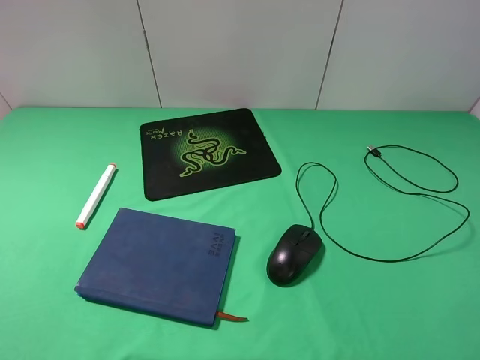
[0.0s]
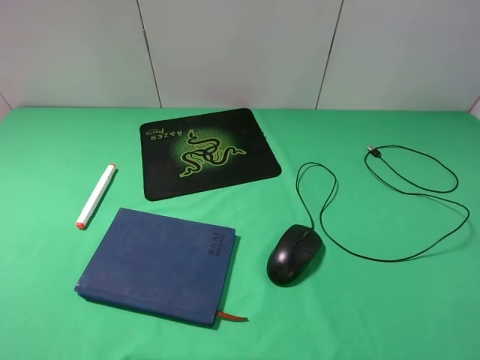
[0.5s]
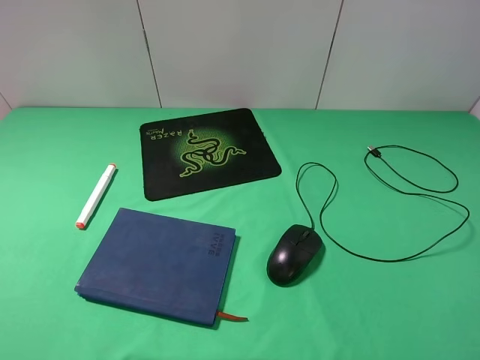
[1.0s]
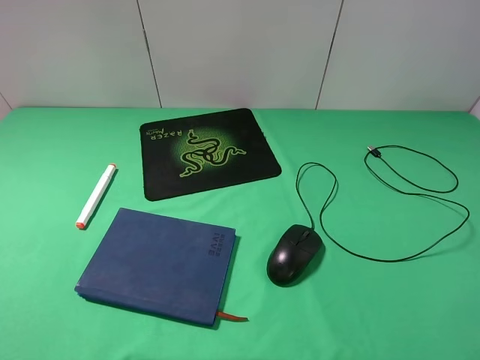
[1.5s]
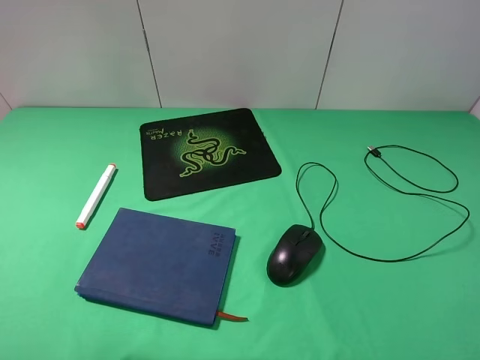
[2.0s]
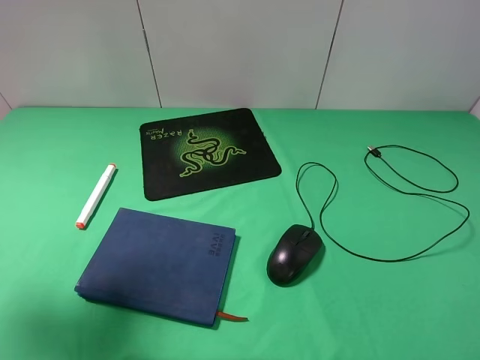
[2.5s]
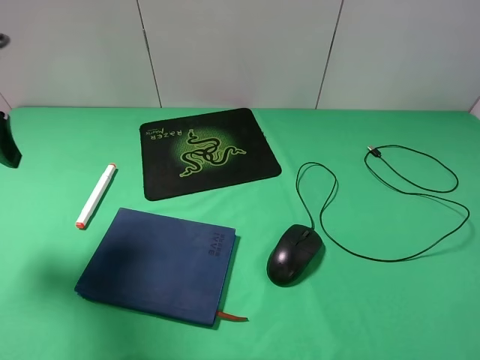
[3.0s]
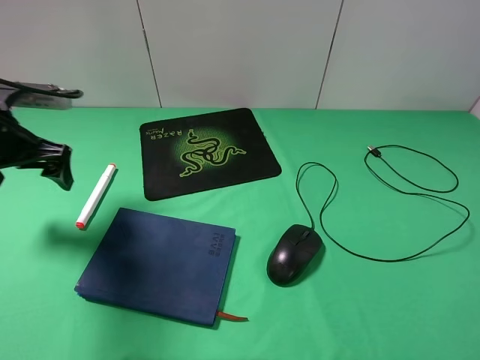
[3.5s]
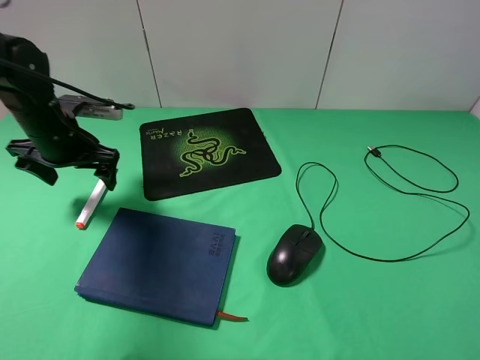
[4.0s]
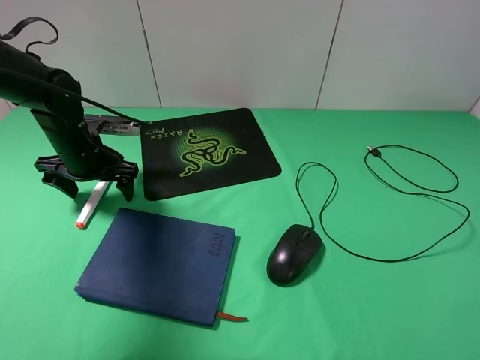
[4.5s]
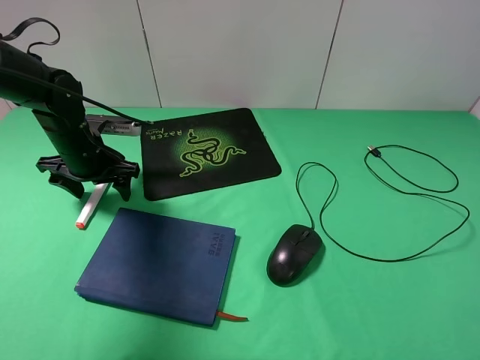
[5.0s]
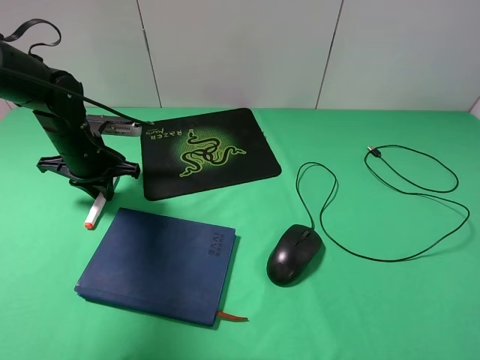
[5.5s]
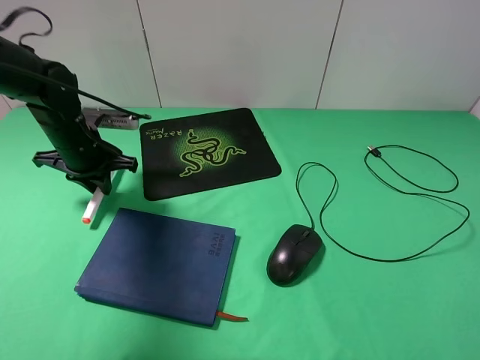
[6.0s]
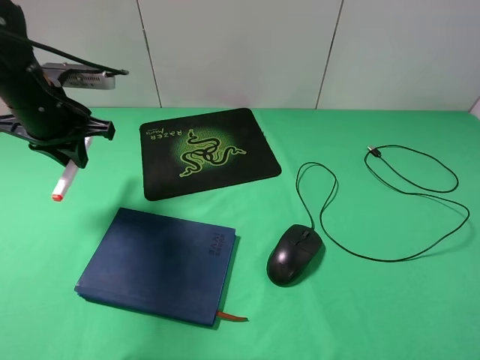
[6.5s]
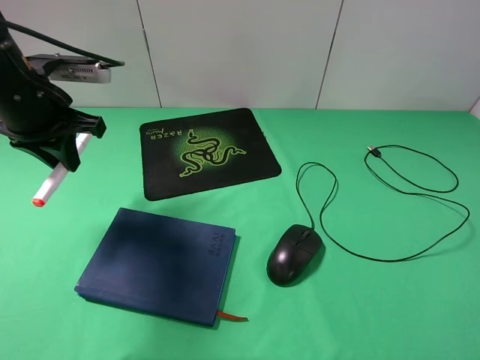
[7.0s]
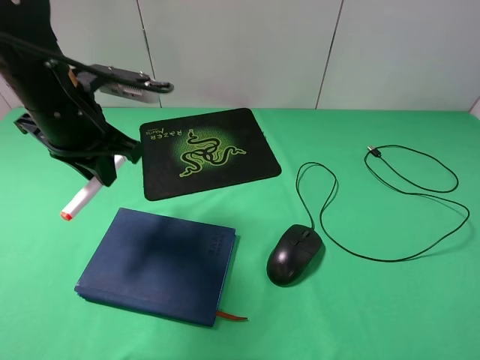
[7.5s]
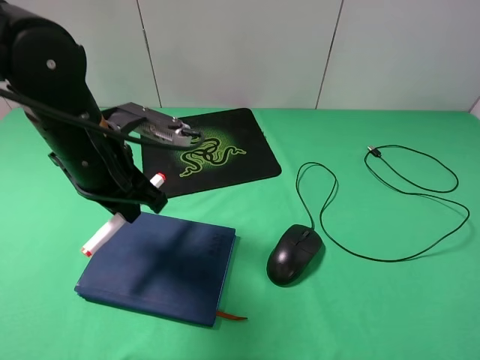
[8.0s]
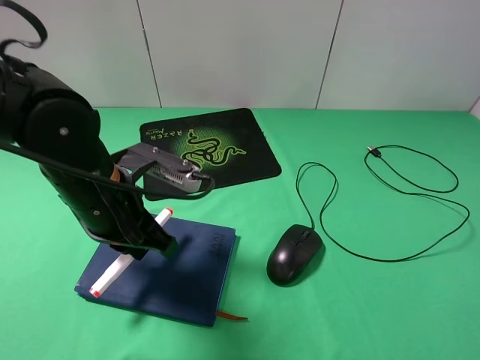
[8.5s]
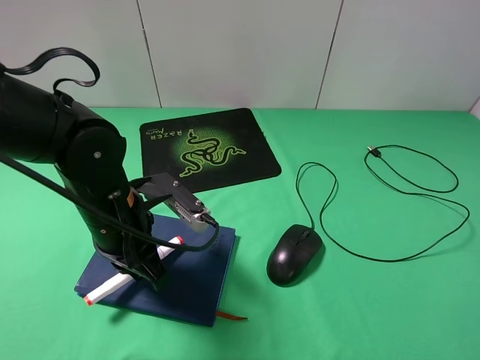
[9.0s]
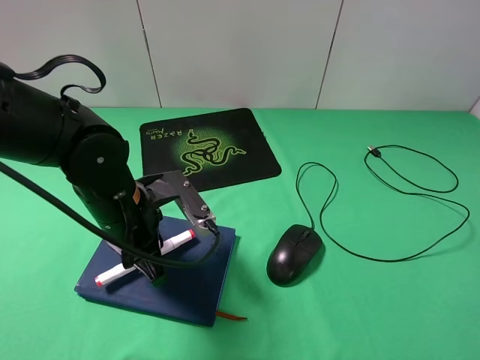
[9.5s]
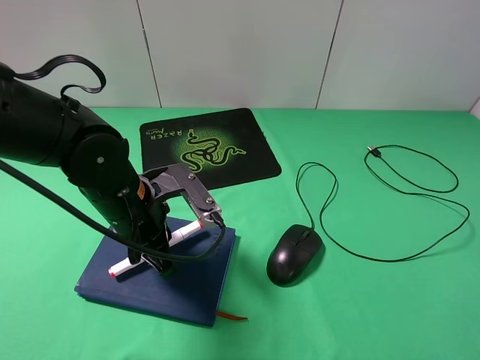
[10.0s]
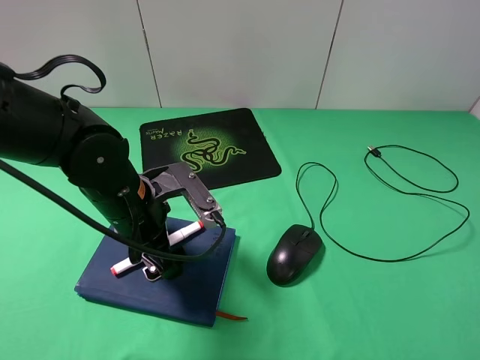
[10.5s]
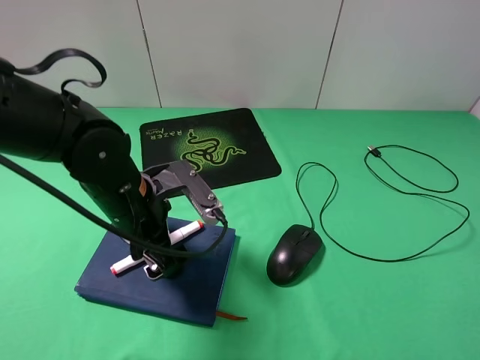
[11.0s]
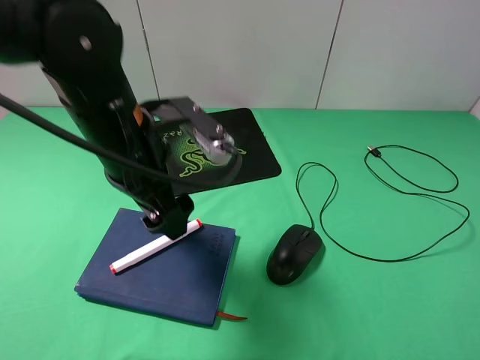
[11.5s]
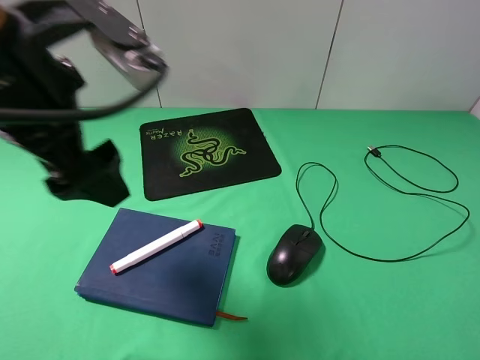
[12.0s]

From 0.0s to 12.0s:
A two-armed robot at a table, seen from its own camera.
Step, from 0.0s to 5.5s: Grasp the marker with the left gripper.
Step, from 6.0s to 10.5s: Place the marker on the notebook with the left gripper.
From 2.0s to 4.0s: The left gripper travels forward and downward by approximately 35 cm.
From 4.0s to 6.0s: The left gripper closes up.
From 6.0s to 8.0s: The left gripper is displaced backward, to the right and upward by some 15 cm.
From 8.0s to 10.0s: The left gripper goes roughly 5 cm downward.
From 10.0s to 12.0s: The left gripper moves upward, some 20 cm, and opens its fingers.

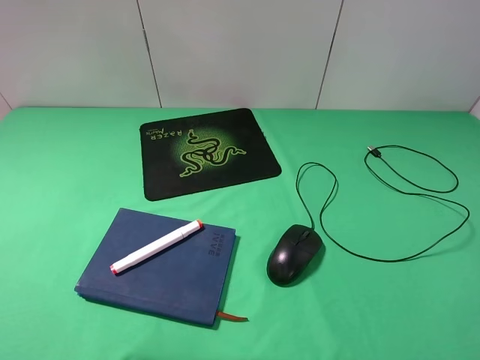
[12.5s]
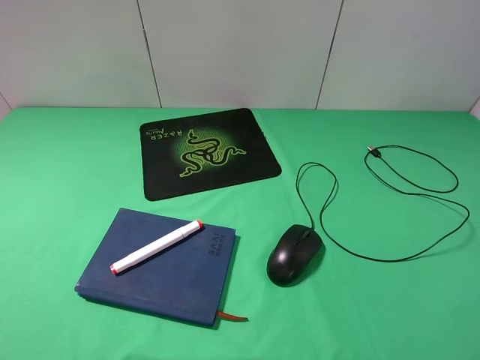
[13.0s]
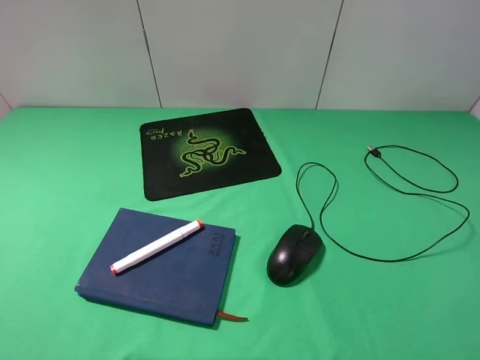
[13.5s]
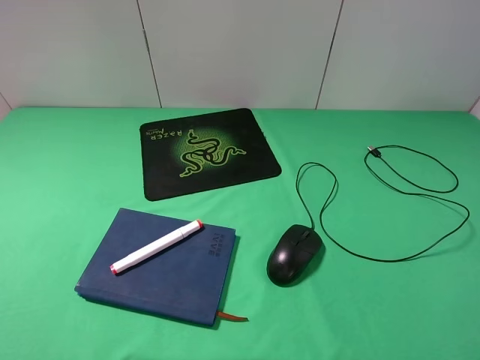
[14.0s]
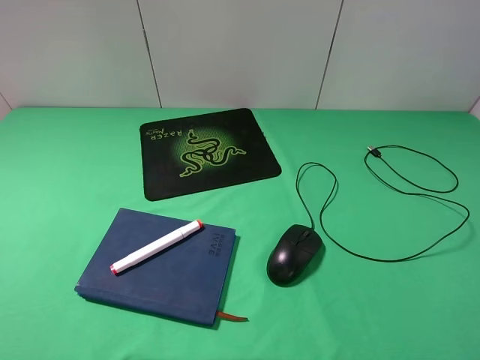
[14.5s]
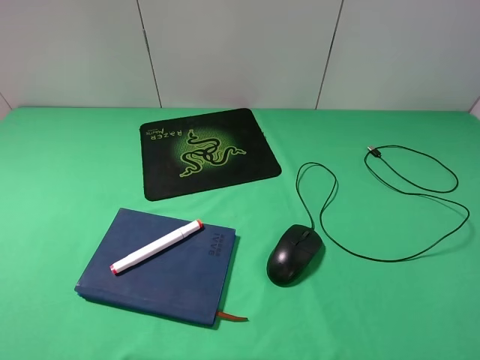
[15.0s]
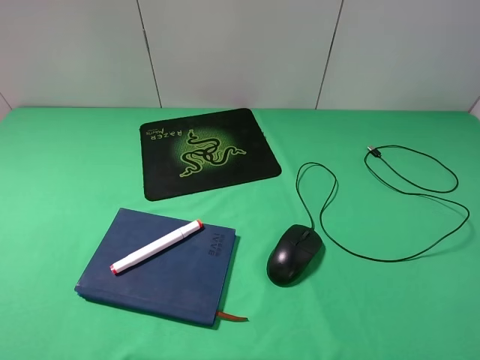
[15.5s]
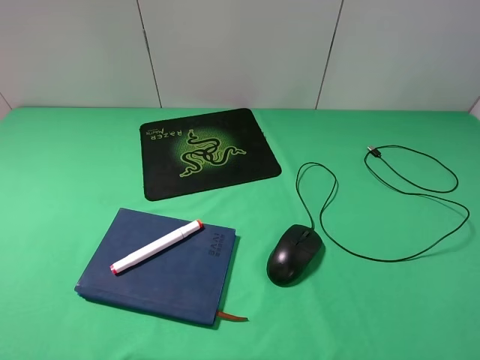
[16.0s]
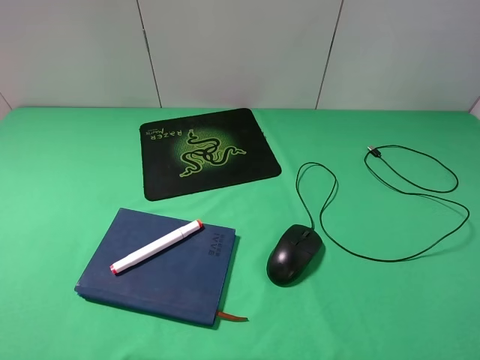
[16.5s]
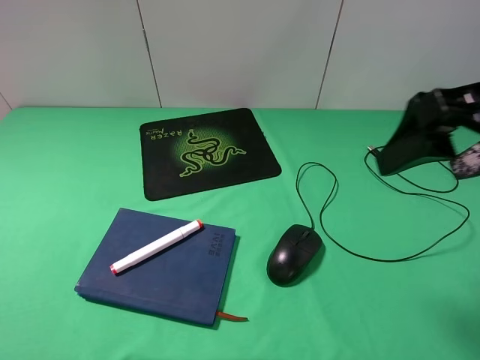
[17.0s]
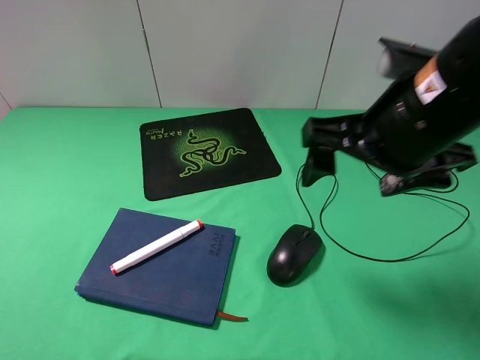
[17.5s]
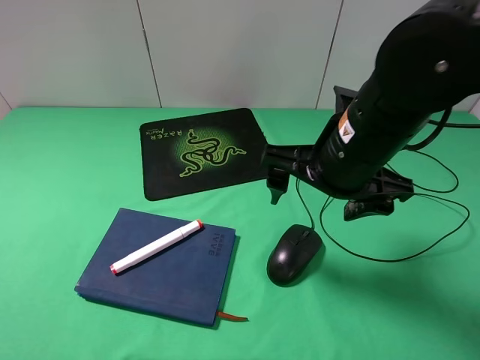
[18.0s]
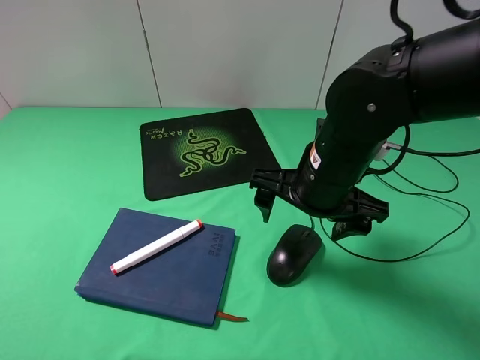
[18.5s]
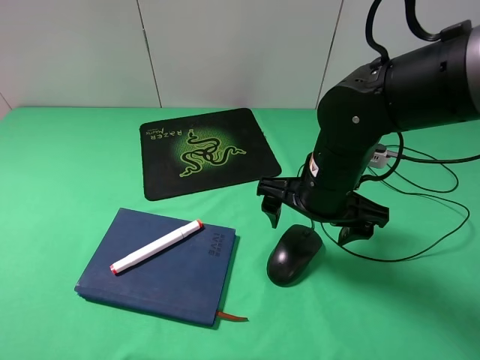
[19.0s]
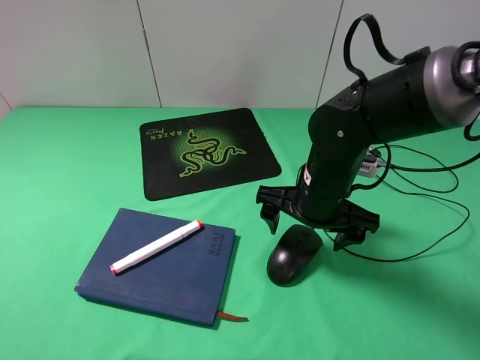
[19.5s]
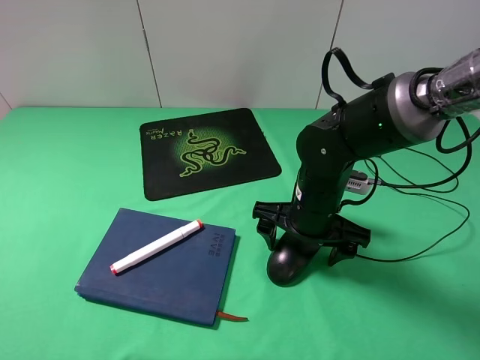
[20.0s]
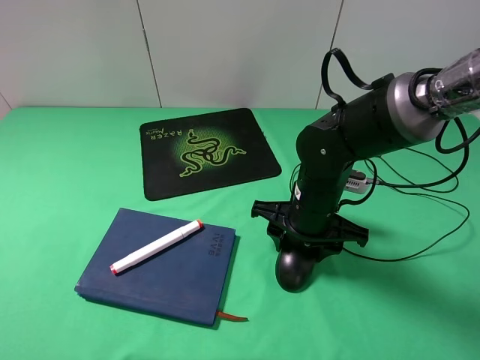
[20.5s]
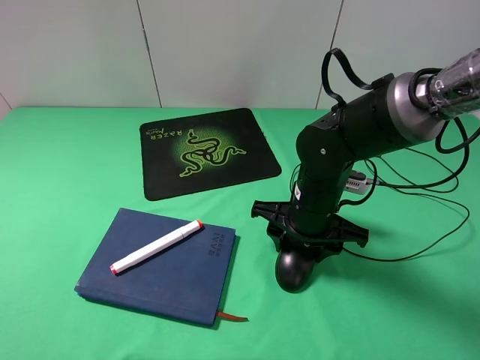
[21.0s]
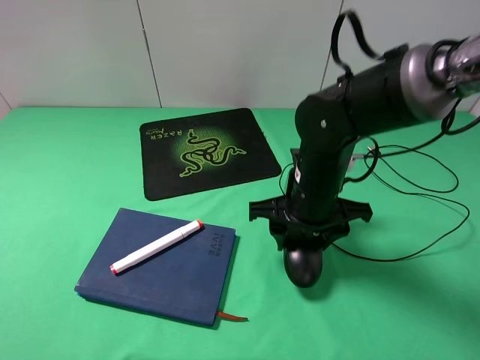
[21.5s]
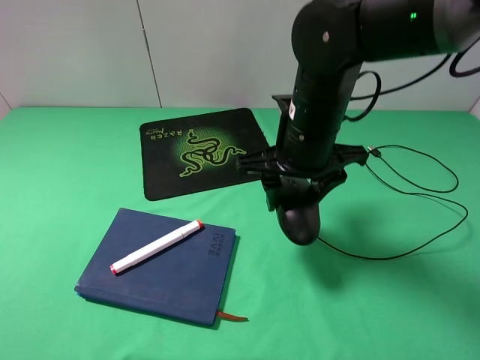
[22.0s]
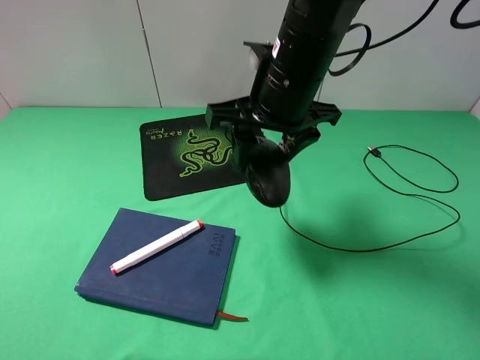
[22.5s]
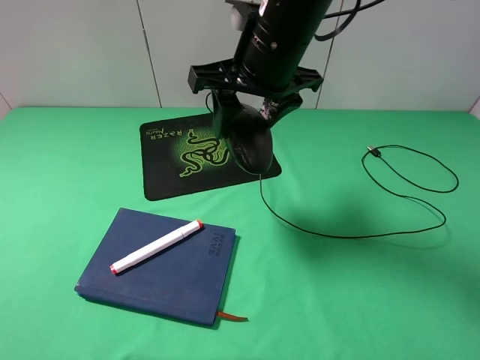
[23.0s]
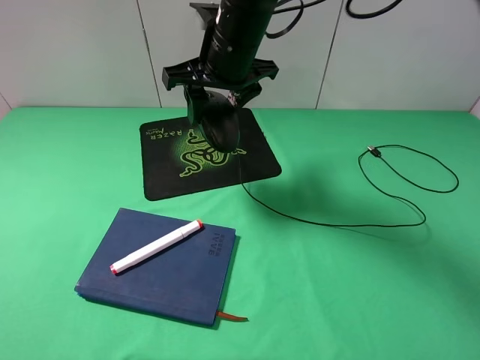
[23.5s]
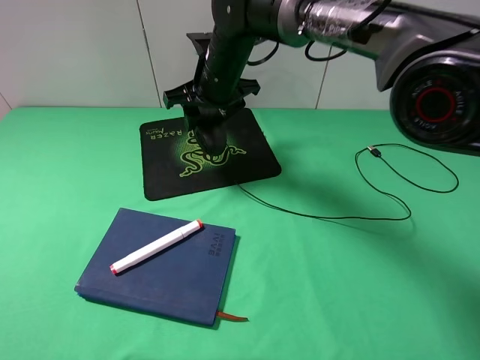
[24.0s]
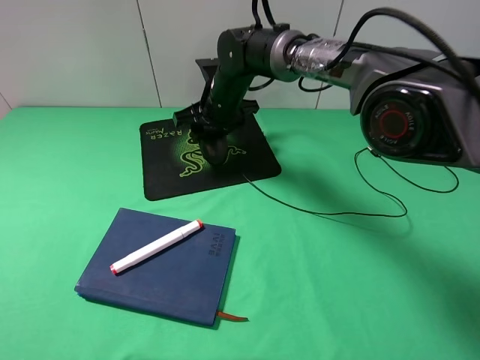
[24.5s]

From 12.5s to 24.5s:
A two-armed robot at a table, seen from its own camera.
Step, from 12.5s to 20.5s: Grasp the mouse with the right gripper.
From 16.5s to 18.5s: The right gripper goes some 30 cm downward, to the left and forward.
From 18.5s to 20.5s: The right gripper goes approximately 10 cm downward, and closes its fingers.
From 20.5s to 22.5s: The right gripper goes about 15 cm upward.
From 22.5s to 24.5s: The right gripper moves forward, downward and to the left, about 20 cm.

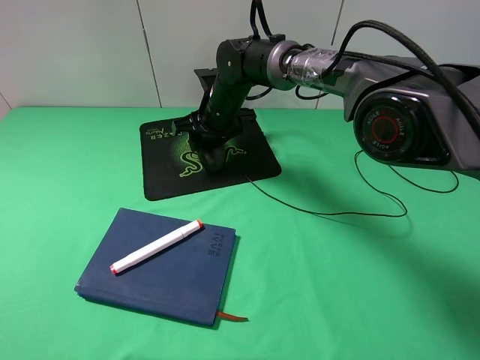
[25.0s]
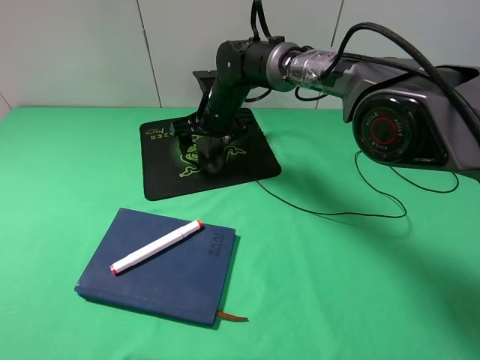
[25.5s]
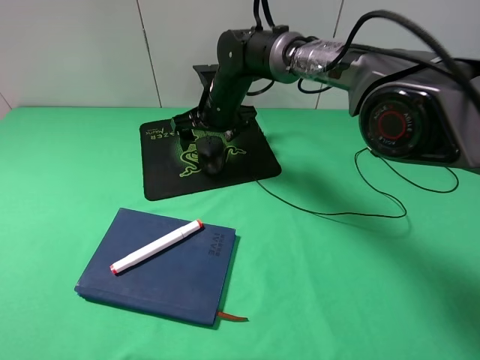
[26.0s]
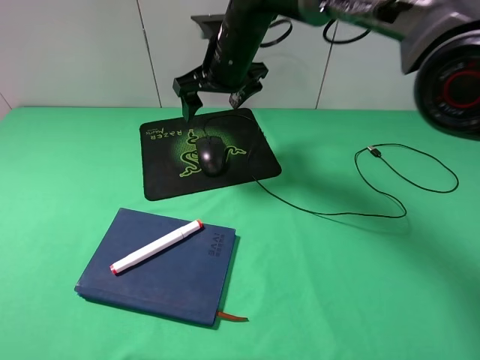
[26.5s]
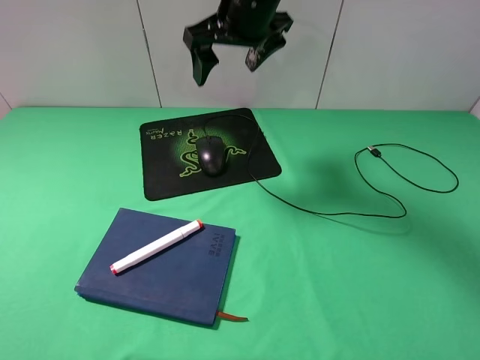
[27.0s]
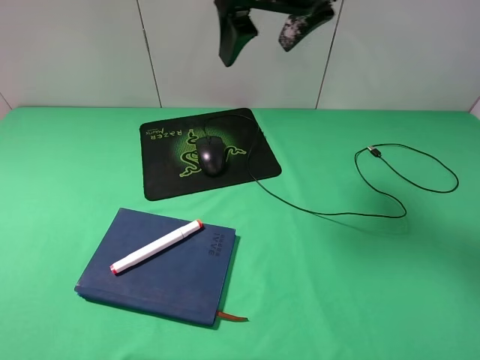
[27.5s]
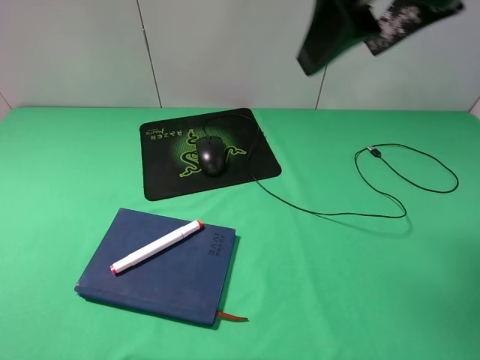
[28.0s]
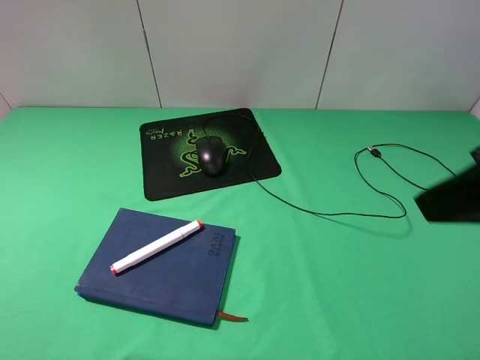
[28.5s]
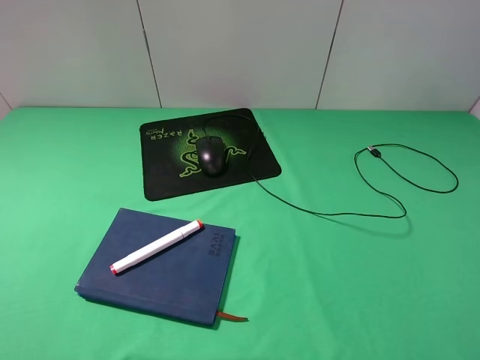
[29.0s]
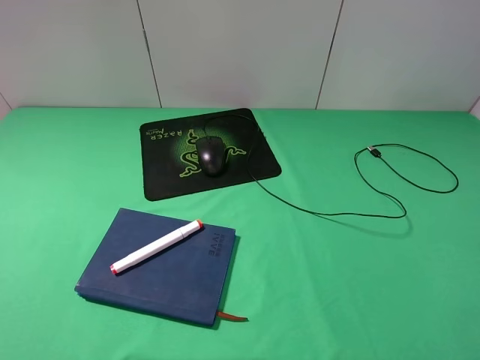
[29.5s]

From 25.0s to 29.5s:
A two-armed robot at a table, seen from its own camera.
From 25.0s to 27.0s: The right gripper shifts some 20 cm upward, and opens.
From 27.0s to 29.5s: The right gripper goes roughly 50 cm backward and to the right.
